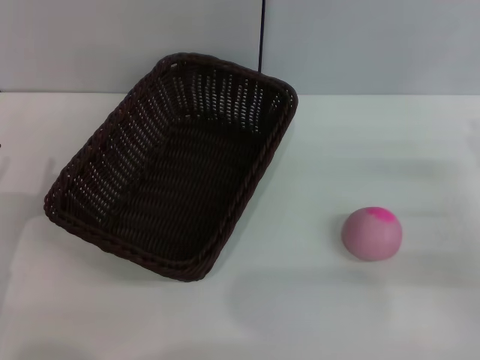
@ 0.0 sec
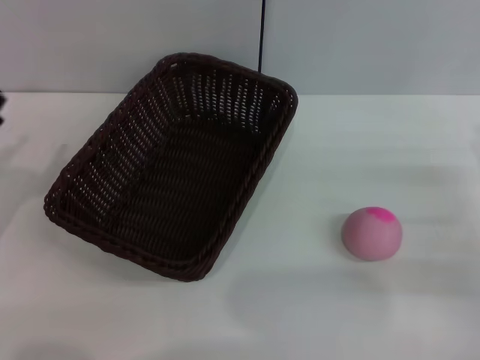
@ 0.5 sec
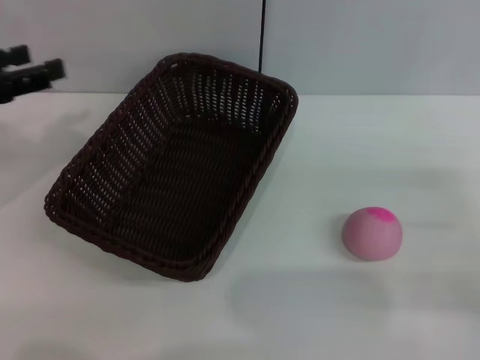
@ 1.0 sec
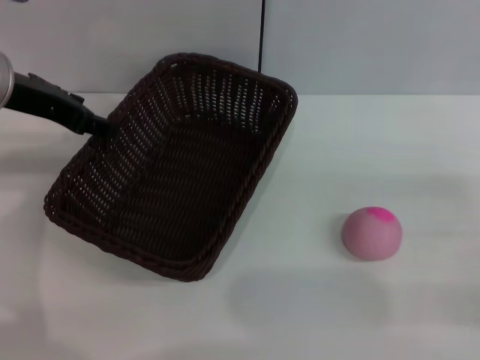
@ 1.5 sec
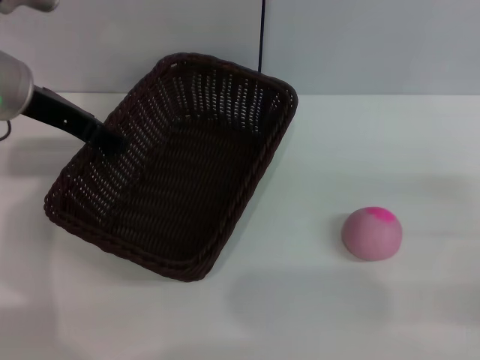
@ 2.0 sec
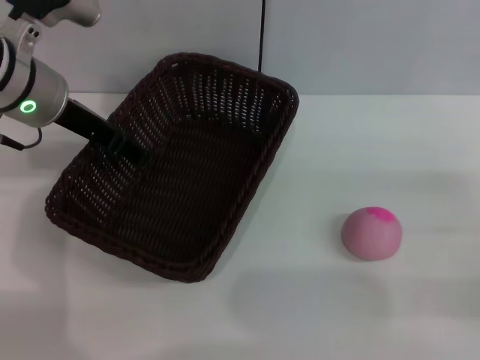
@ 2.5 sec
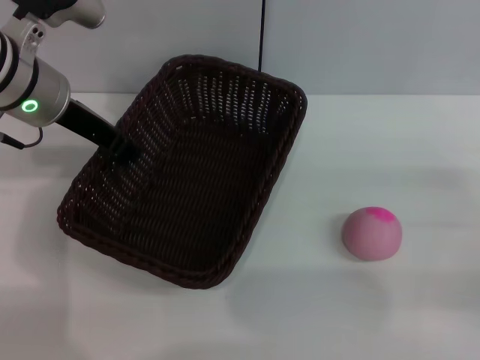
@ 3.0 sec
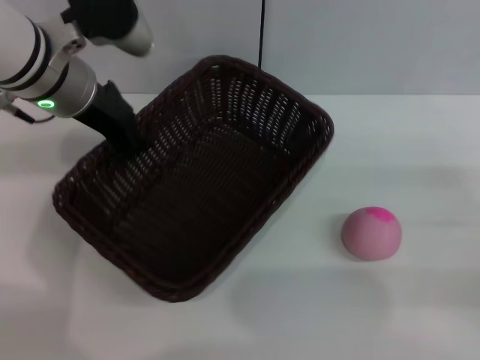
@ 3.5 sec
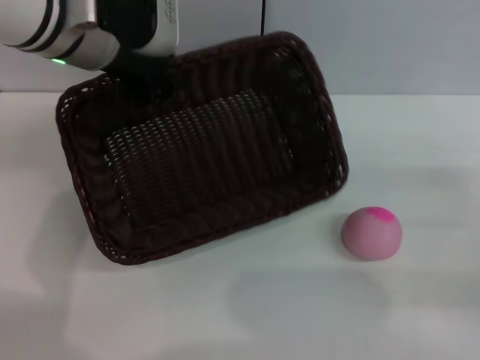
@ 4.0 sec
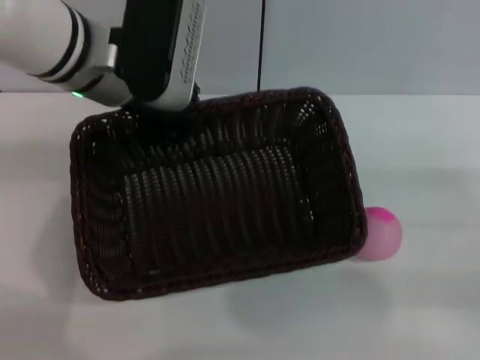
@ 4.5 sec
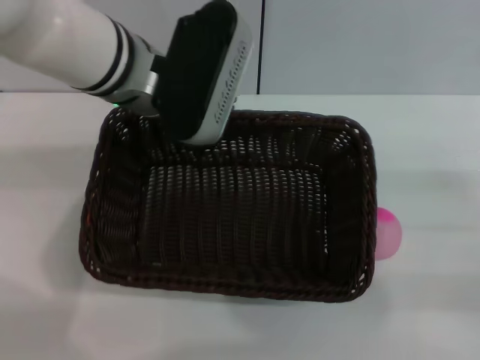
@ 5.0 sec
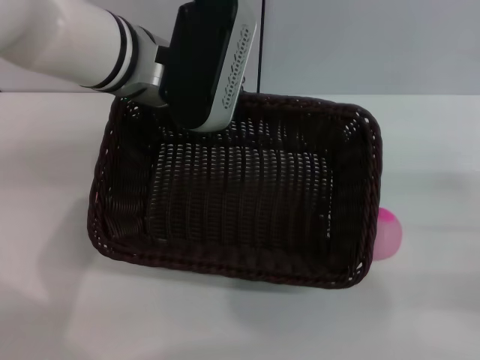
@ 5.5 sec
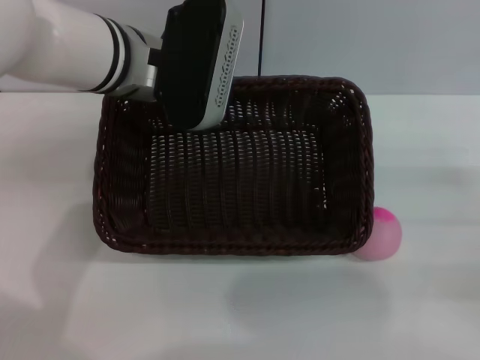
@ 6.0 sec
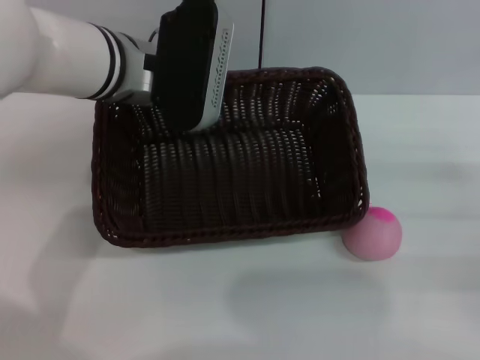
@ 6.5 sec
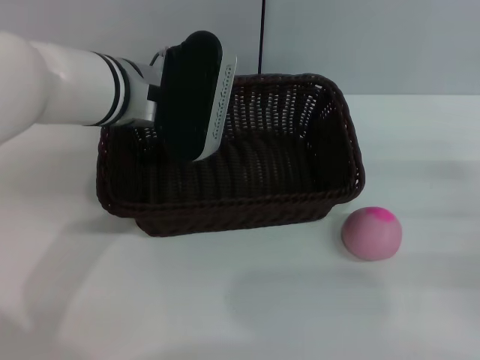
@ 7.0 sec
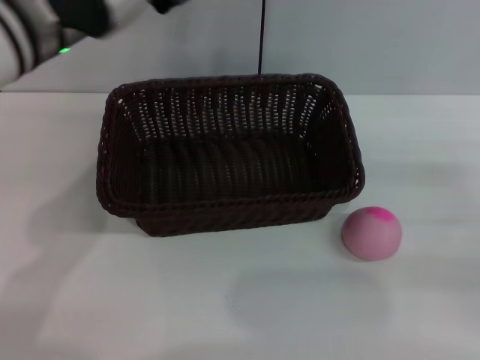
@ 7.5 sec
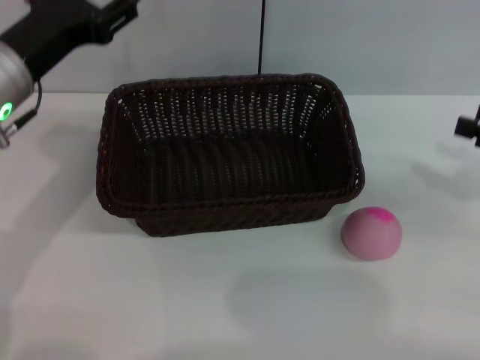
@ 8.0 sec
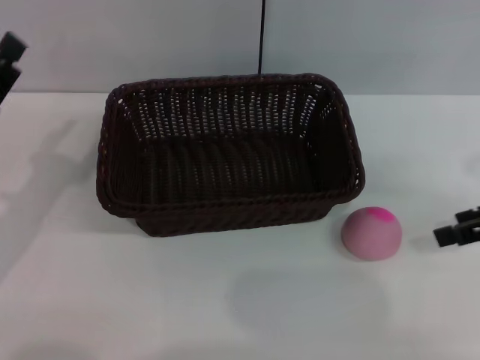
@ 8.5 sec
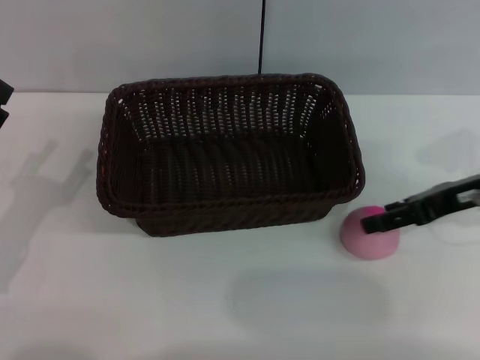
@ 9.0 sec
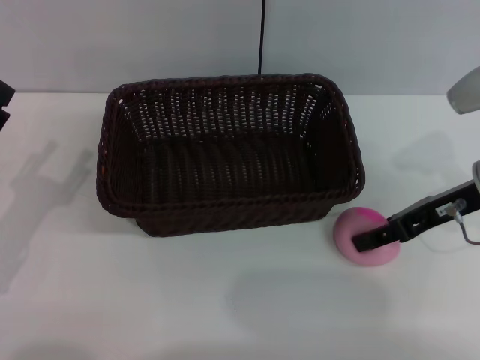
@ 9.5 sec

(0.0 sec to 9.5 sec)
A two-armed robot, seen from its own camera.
Step, 0.0 sec - 4.0 sec: Pick up the dark basket with the left gripper.
Step, 4.5 sec - 7.0 sec: Place the dark basket in the center of view with the right gripper.
0.0 sec - 2.0 sec: The left gripper travels forward, upward and to the right by roughly 25 cm.
2.0 sec - 4.0 sec: The left gripper shifts approximately 10 cm to the right, and closes its fingers.
4.0 sec - 5.5 sec: The left gripper changes place by approximately 5 cm.
5.5 sec - 7.5 sec: The left gripper travels to the left by some 5 cm, and opens its fingers.
7.5 sec - 9.5 sec: The right gripper heads to the left and forward, covering about 15 cm. The left gripper goes about 25 cm downward, to the left and backward.

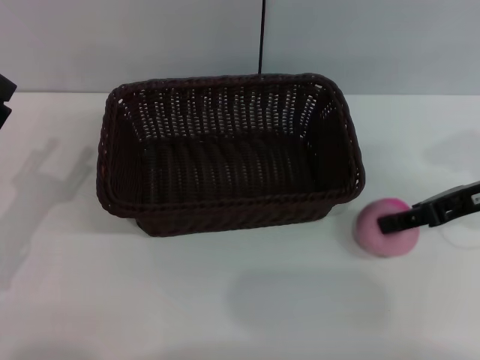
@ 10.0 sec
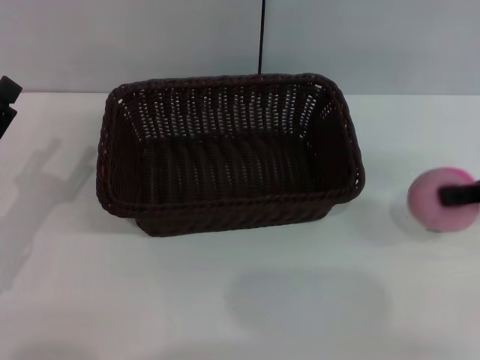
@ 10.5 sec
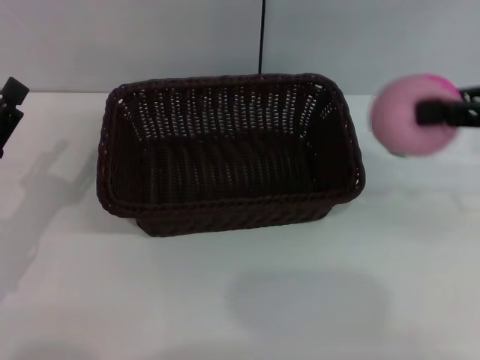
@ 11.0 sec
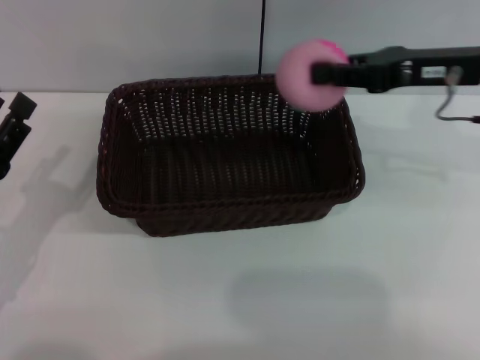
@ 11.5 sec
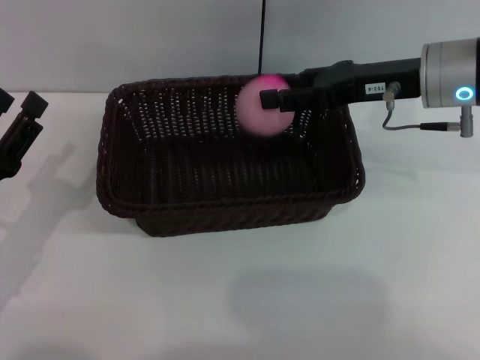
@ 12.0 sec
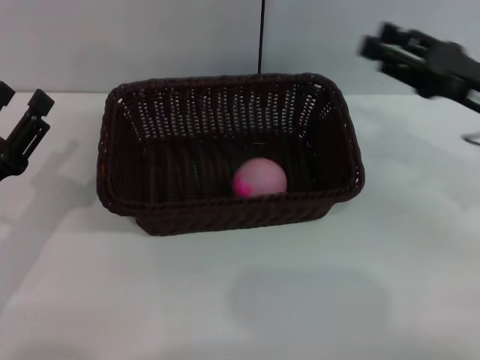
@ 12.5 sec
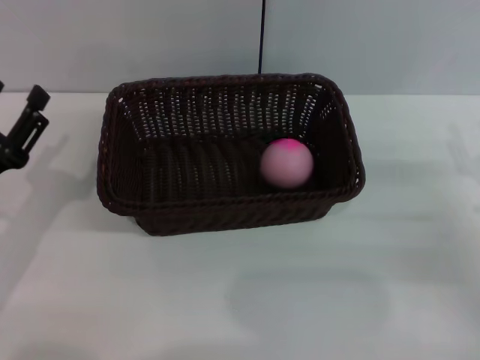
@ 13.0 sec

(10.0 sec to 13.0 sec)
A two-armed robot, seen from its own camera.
10.0 sec - 11.5 sec: The right gripper shifts by some 10 cm, and closes.
11.5 sec - 13.0 sec: The right gripper goes about 20 cm downward, backward and to the right, and opens up.

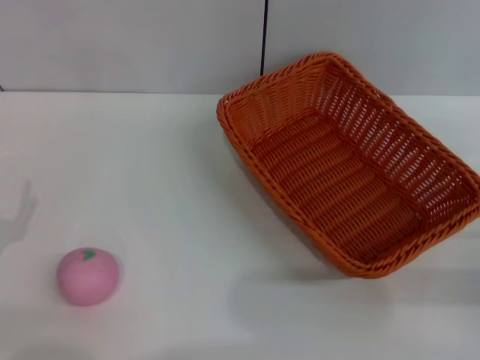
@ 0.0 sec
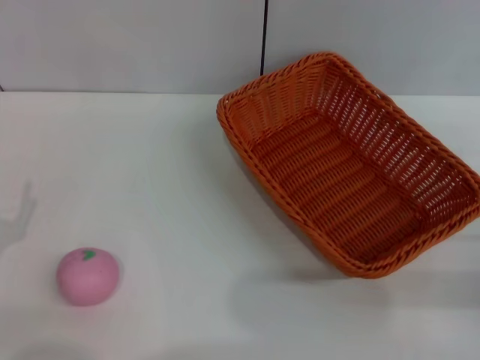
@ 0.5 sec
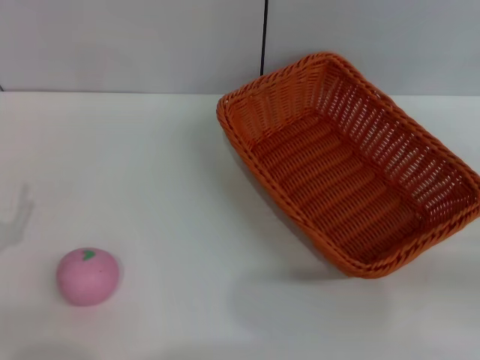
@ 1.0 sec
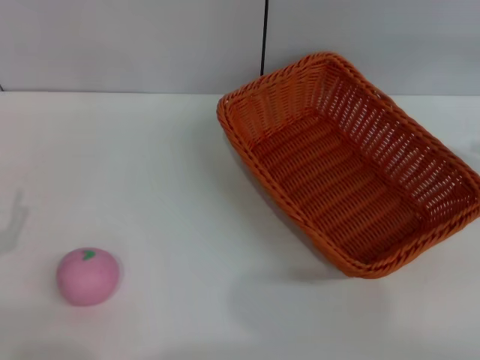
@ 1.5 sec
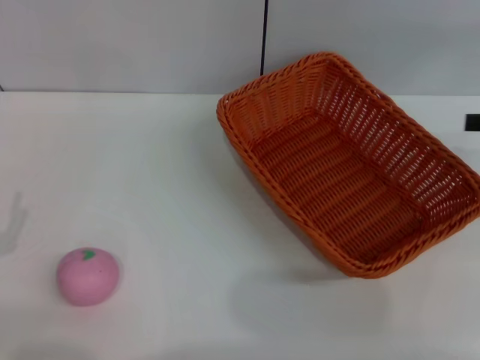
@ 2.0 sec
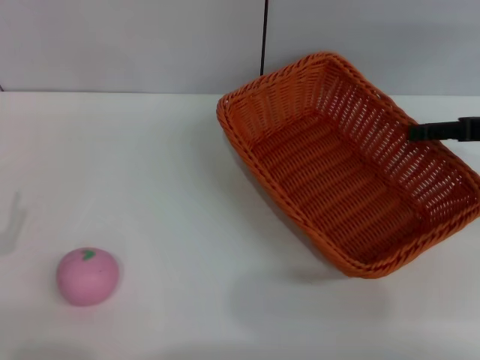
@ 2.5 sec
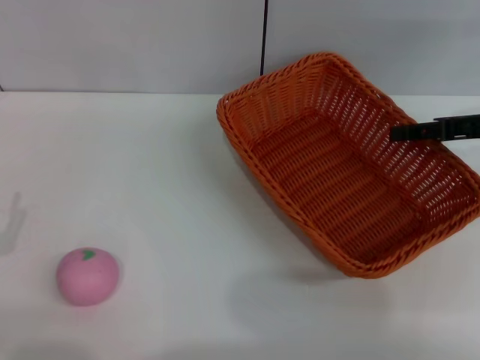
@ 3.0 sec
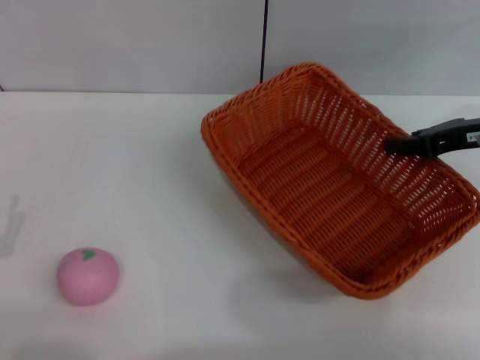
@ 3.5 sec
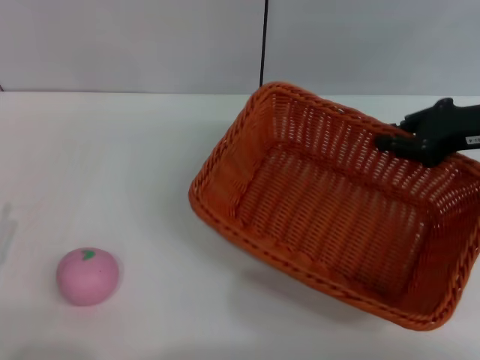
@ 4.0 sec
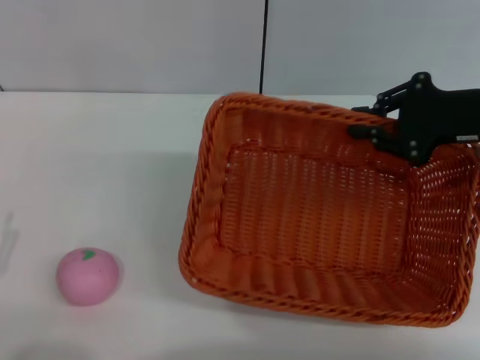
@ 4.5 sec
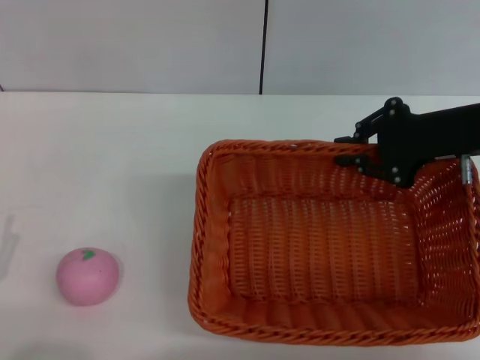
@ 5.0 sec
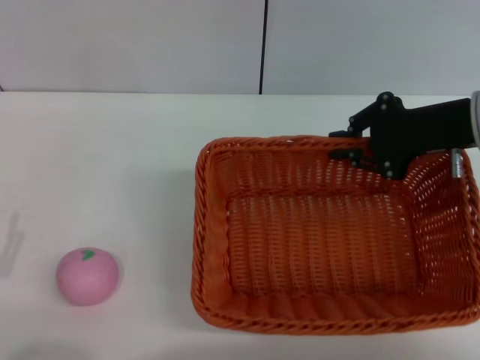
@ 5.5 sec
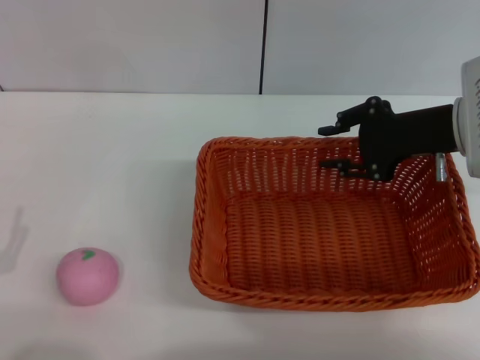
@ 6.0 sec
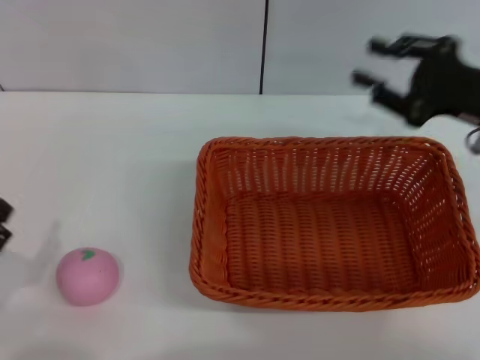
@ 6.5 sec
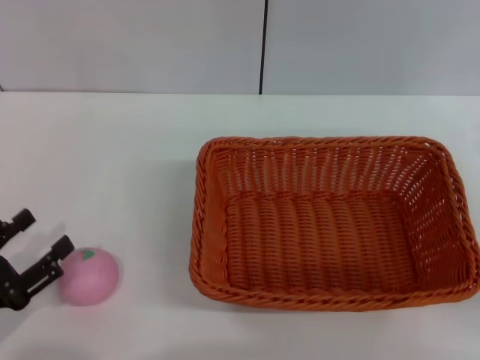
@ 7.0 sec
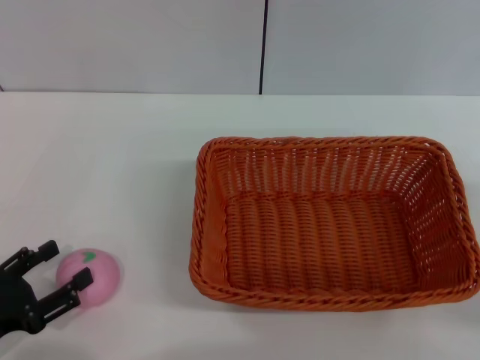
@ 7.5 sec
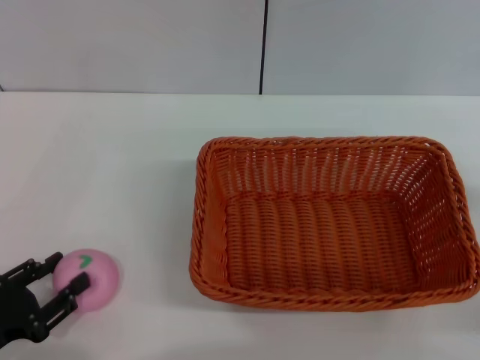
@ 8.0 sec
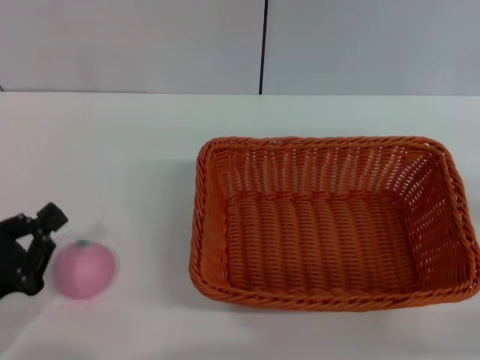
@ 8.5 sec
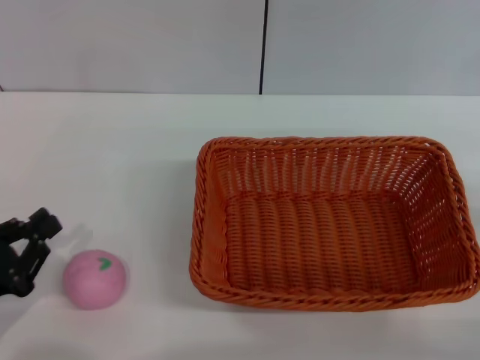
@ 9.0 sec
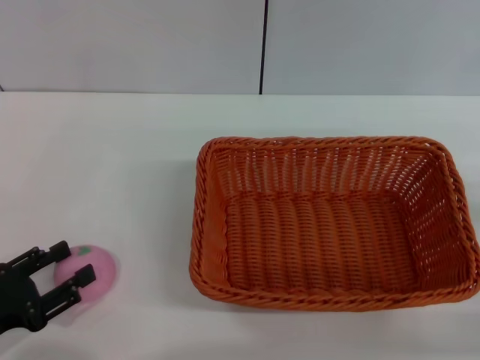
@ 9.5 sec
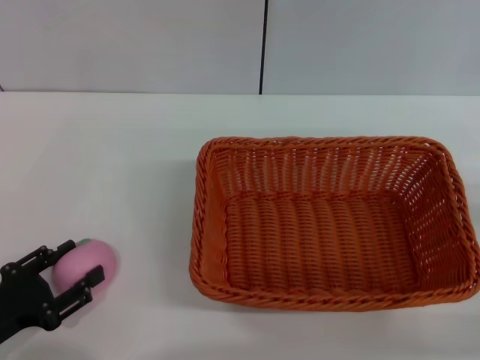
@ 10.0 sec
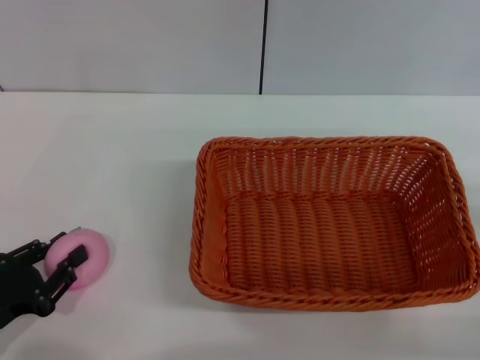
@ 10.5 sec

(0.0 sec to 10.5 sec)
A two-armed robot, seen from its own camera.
Step, 0.0 sec - 4.0 sec: Pick up the light basket with the right gripper.
Step, 4.5 sec - 6.0 sec: Place the light basket in the center of view with the right gripper.
2.0 sec - 4.0 sec: The right gripper shifts approximately 10 cm to the left, and closes.
4.0 sec - 6.5 sec: The right gripper opens up.
6.5 sec - 8.5 sec: The left gripper closes its fingers. The right gripper moves backward, to the right and downward, roughly 20 cm.
8.5 sec - 10.5 sec: The left gripper opens, then closes once more.

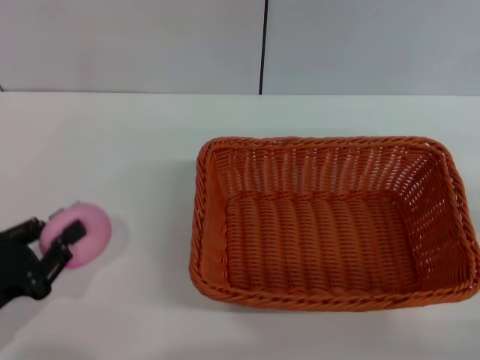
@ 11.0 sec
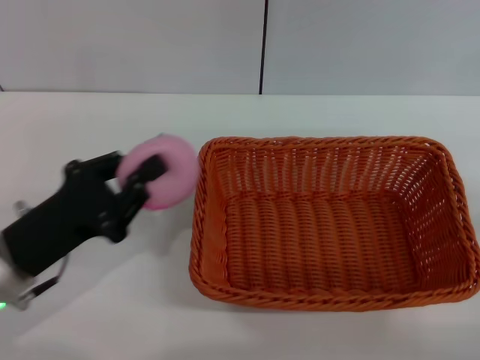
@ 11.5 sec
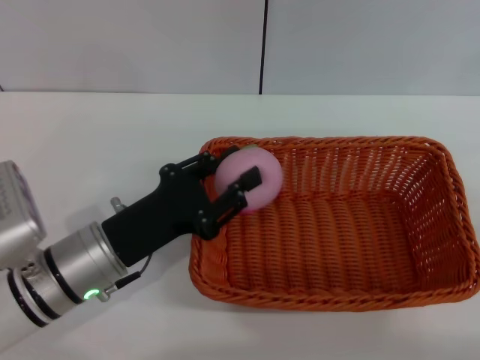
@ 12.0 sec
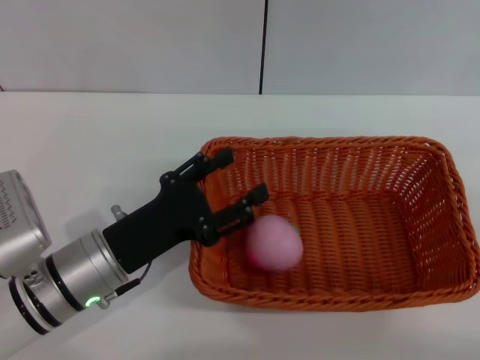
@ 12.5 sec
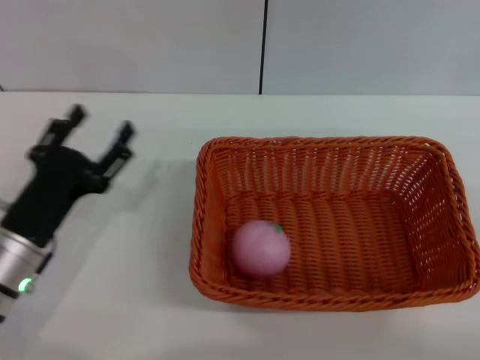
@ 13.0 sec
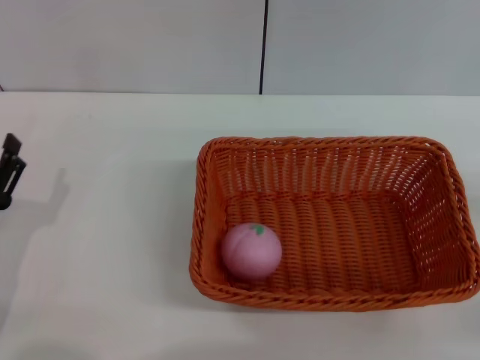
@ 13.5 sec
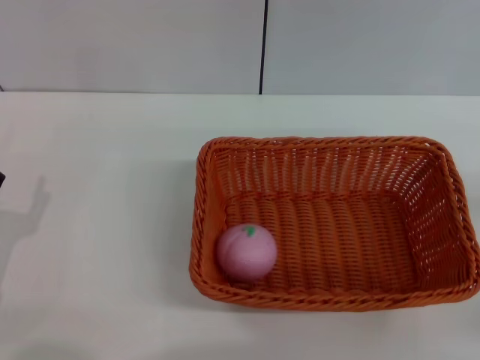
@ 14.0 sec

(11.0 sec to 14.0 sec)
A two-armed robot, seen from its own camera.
Step, 11.5 sec - 12.5 sec: Place the peach into the basket with the left gripper.
11.0 sec - 12.5 sec: The left gripper shifts approximately 15 cm to the right and forward, and opens up.
12.5 sec - 14.0 sec: The left gripper moves to the left and backward, about 15 cm. Meanwhile the right gripper opens its fingers.
